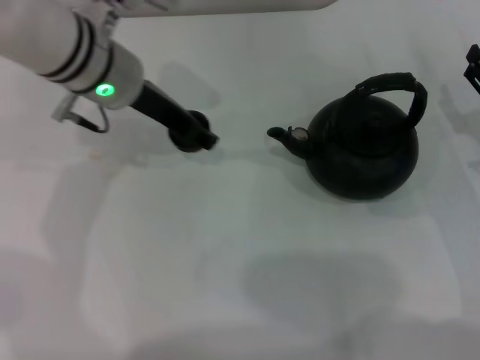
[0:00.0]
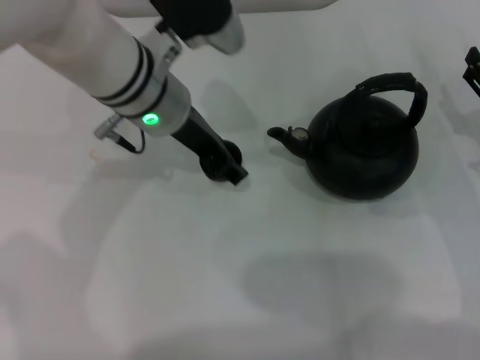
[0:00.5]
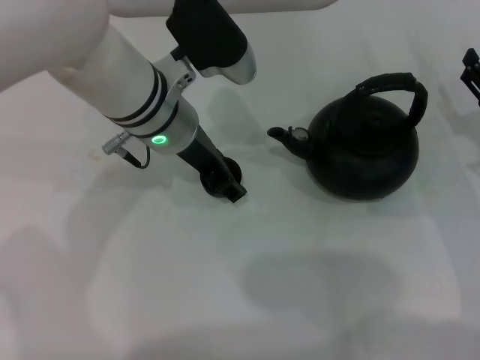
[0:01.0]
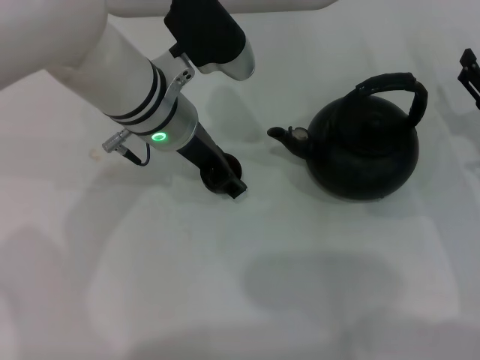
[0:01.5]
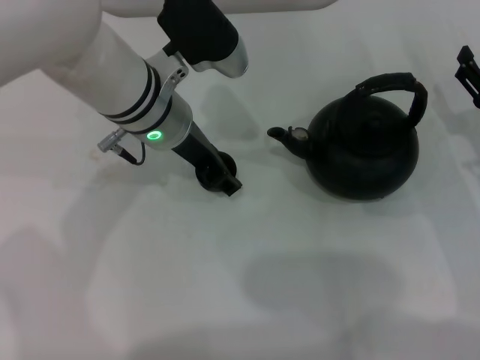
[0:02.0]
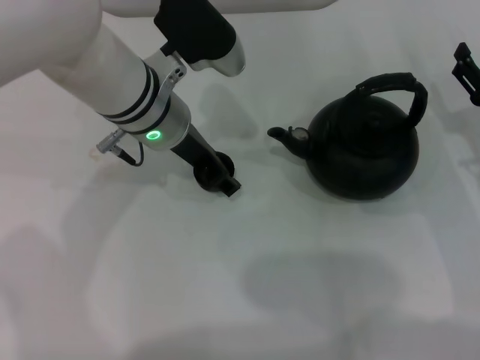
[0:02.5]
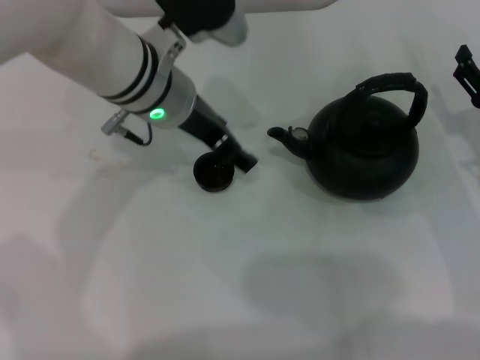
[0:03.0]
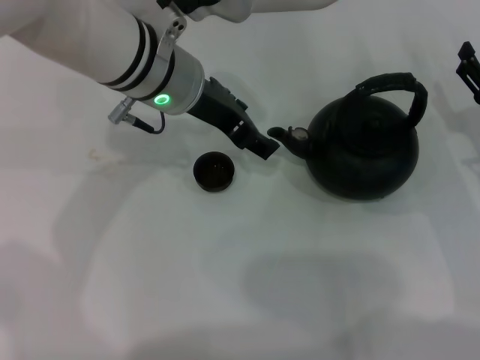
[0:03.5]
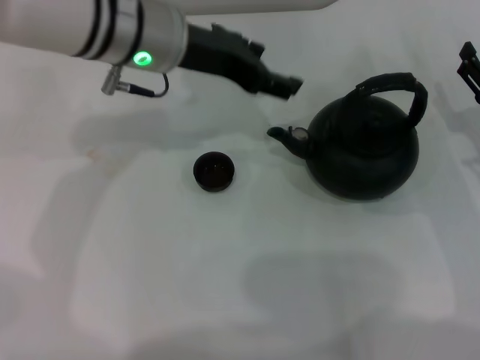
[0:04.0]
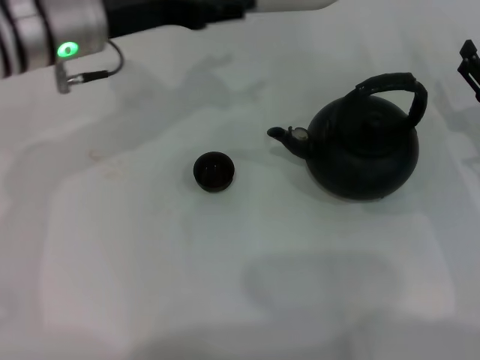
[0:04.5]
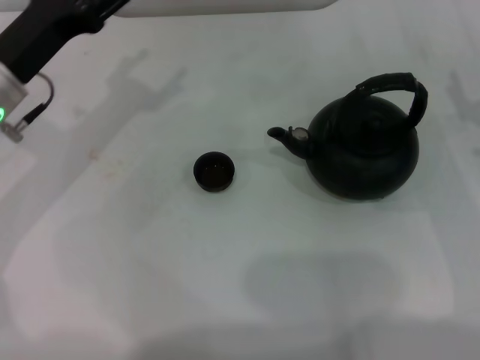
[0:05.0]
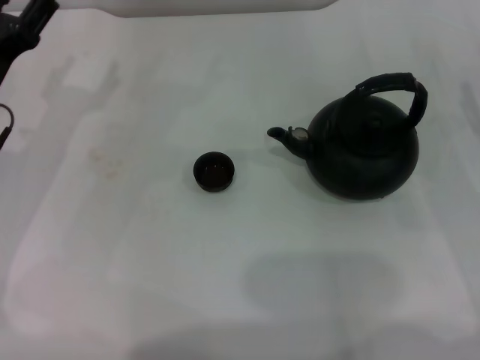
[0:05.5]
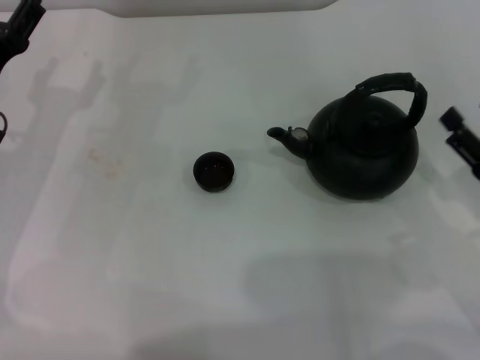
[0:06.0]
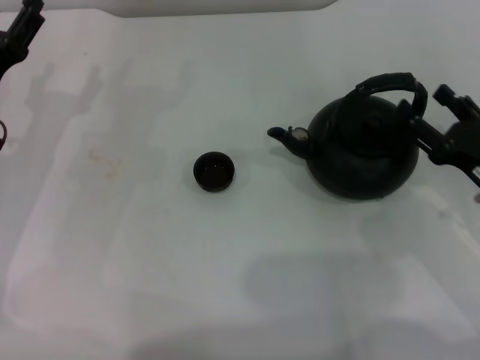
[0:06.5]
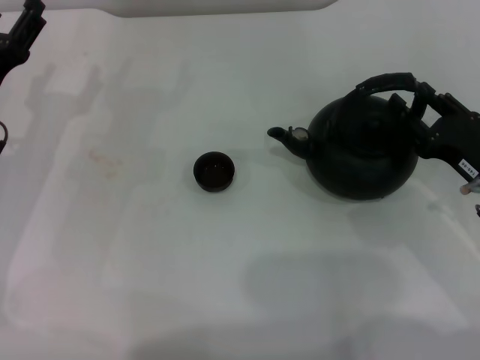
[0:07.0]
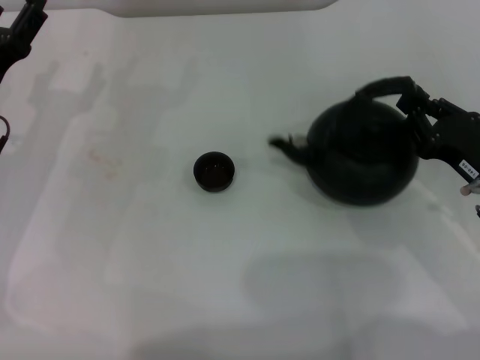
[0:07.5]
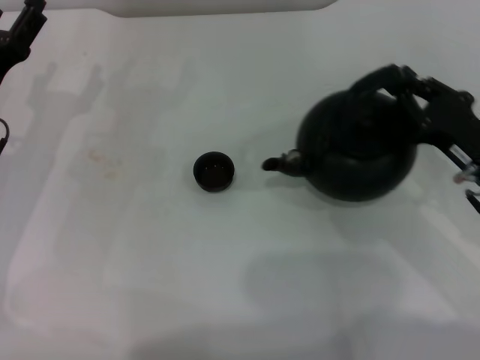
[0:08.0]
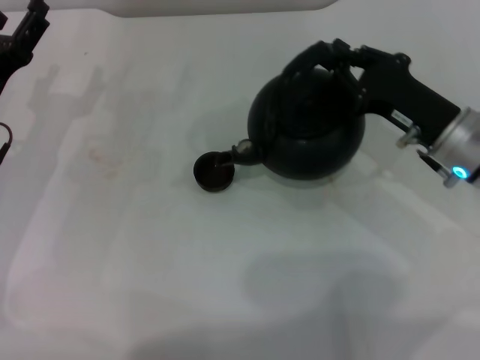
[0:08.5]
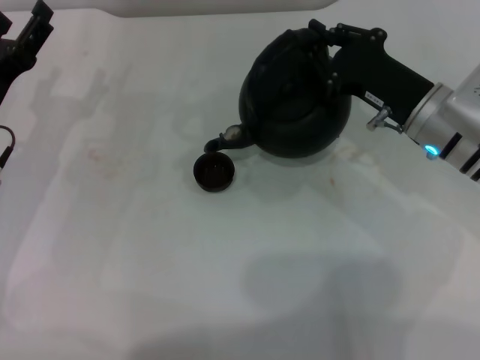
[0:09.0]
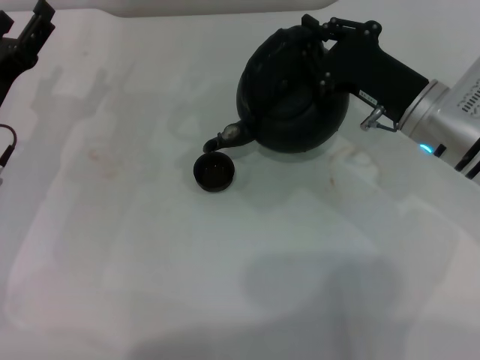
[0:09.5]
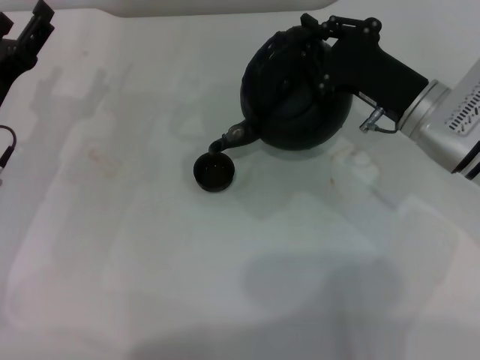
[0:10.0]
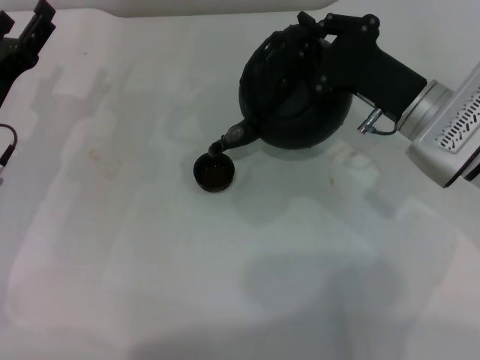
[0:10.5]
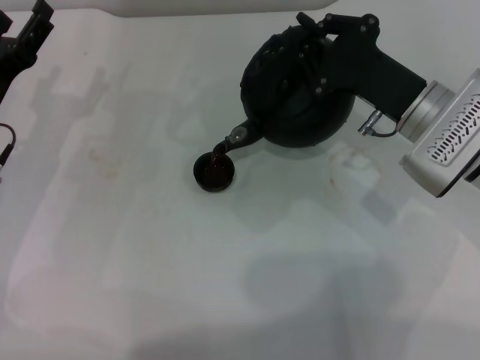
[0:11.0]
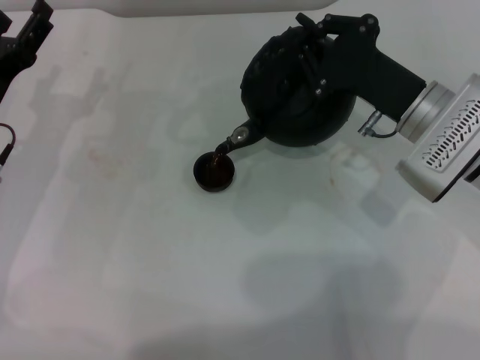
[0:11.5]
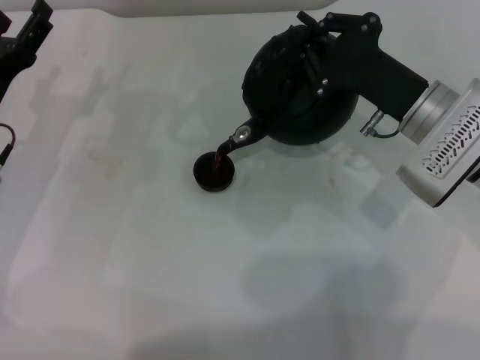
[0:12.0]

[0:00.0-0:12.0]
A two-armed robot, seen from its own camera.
Task of the whole recording: Grasp the handle of the teapot with one hand and pour tea into the teacup.
Step, 0:00.0 to 0:03.0: Place the teacup in the center of view with the left gripper.
Step, 0:03.5 to 0:08.0: Pick up the teapot with the right gripper.
0:00.0 to 0:02.0: The left gripper shifts by some 5 cm.
0:02.0 to 0:04.0: The left gripper travels upward by approximately 5 cm, and opens up.
0:04.0 to 0:06.0: The right gripper travels backward by some 10 cm, while the left gripper goes approximately 20 cm to the left and downward.
0:06.0 to 0:08.0: The right gripper is displaced forward by roughly 5 cm, and closes.
0:08.0 to 0:10.0: The right gripper is displaced to the left and forward by approximately 10 cm.
0:10.0 to 0:12.0: The grippers move only a little.

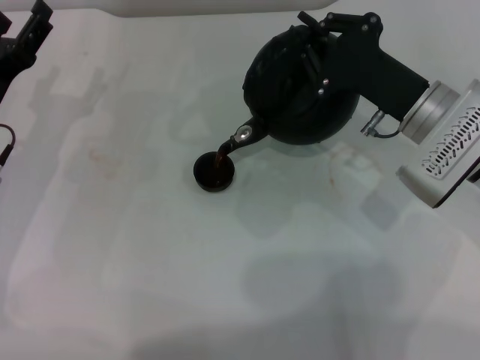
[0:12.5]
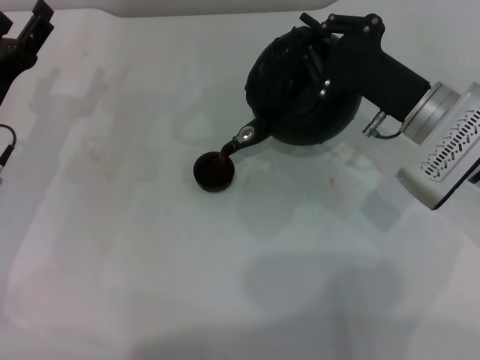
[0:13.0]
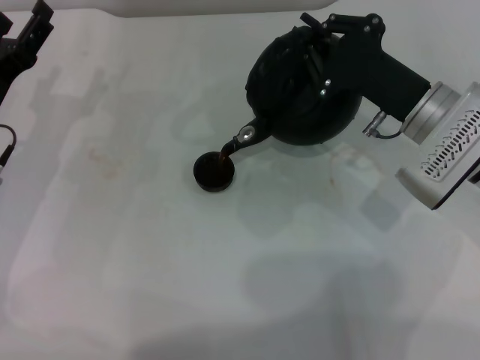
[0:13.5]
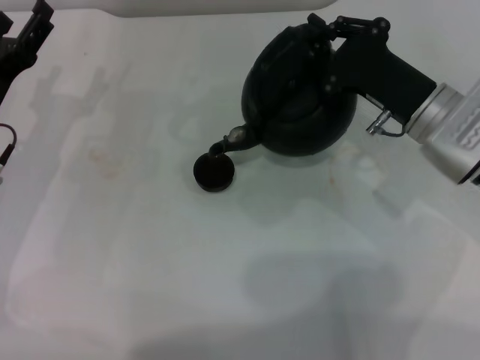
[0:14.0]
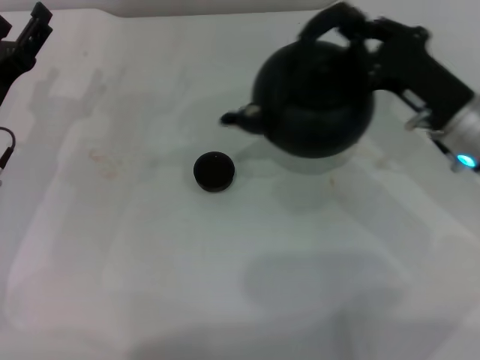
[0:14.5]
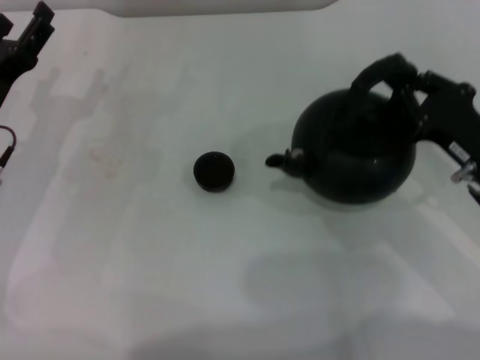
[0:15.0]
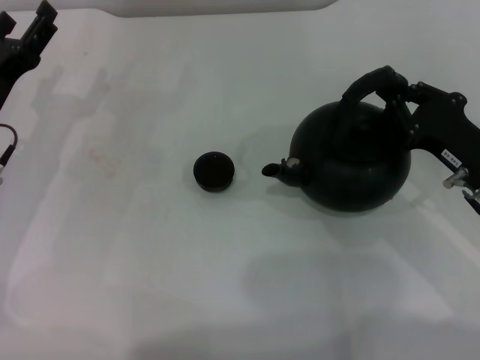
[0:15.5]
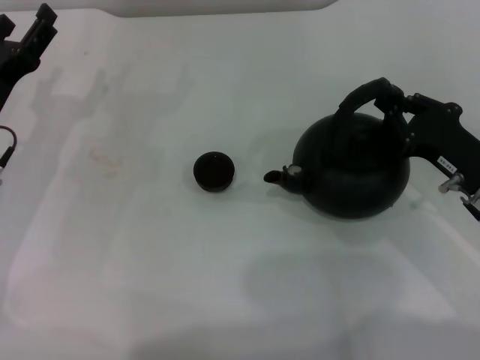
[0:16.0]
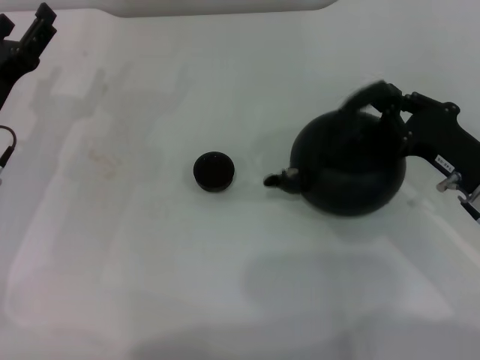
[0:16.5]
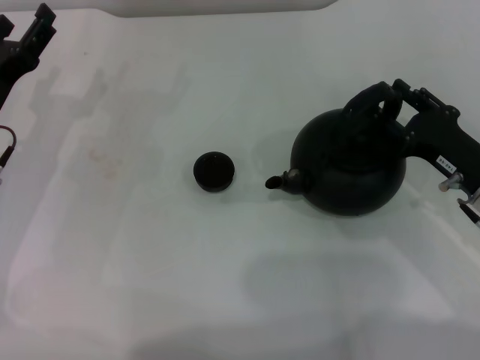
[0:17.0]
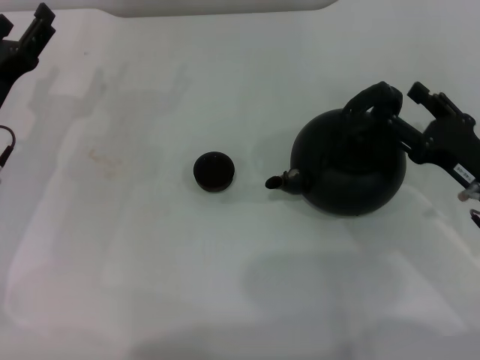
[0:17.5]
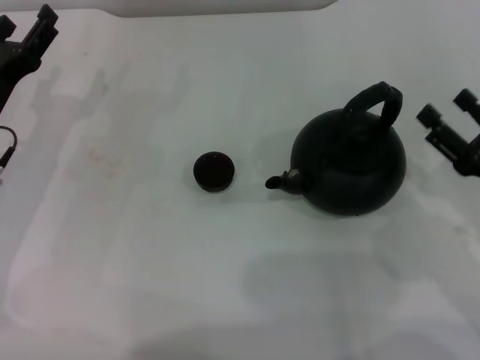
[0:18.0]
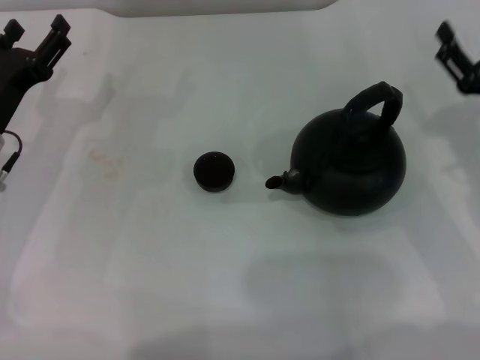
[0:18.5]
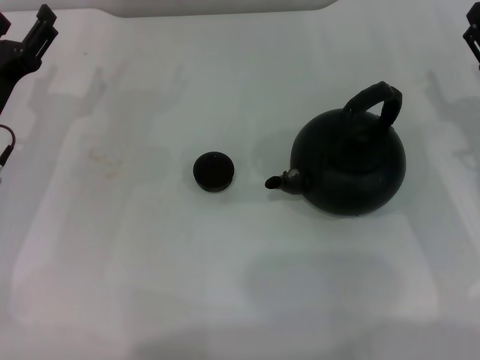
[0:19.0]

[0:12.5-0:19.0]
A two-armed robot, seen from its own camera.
Task of the whole recording: Grasp the handle of the teapot with one hand and pour tea into the teacup.
Step, 0:12.5 to 0:14.5: Pour tea into the teacup with the right gripper.
Step, 0:15.0 to 0:17.5: Put down the teapot with the right gripper.
0:14.5 to 0:17.0: The right gripper shifts by roughly 5 cm, and opens up.
0:17.0 to 0:19.0: The right gripper opens up.

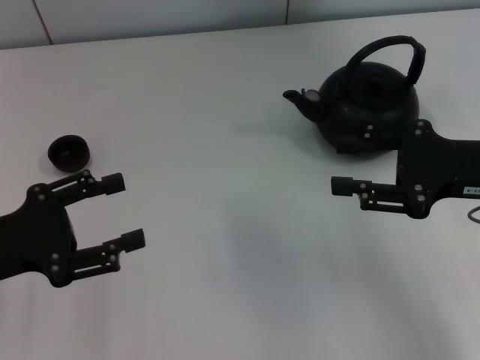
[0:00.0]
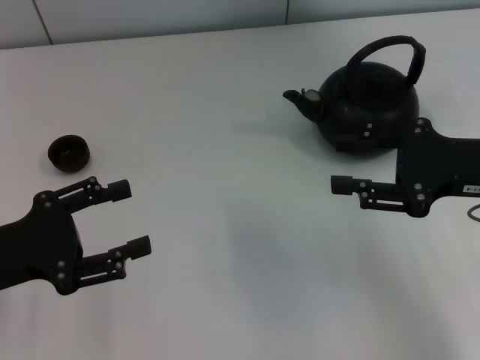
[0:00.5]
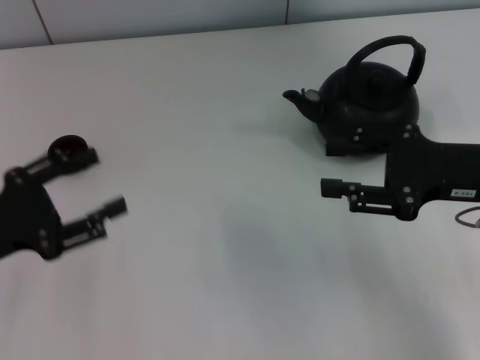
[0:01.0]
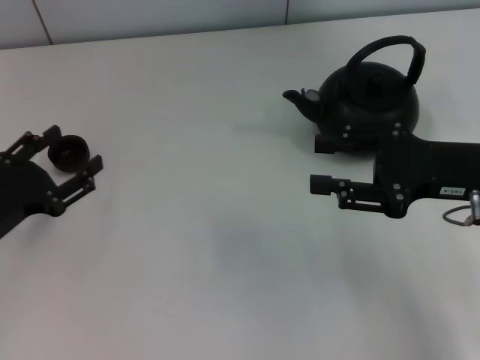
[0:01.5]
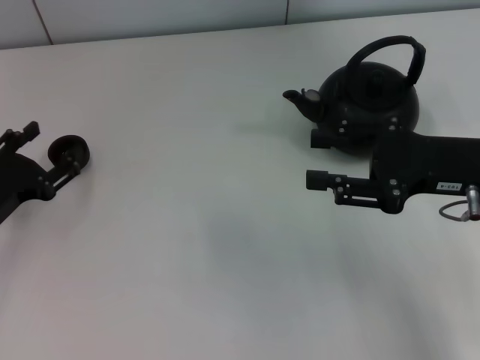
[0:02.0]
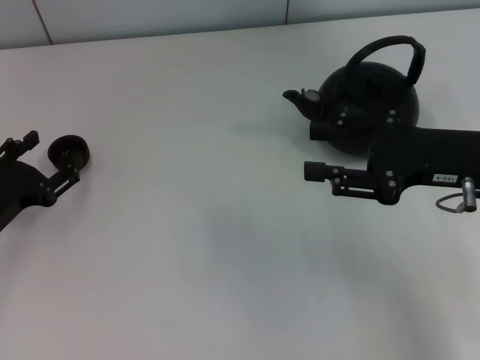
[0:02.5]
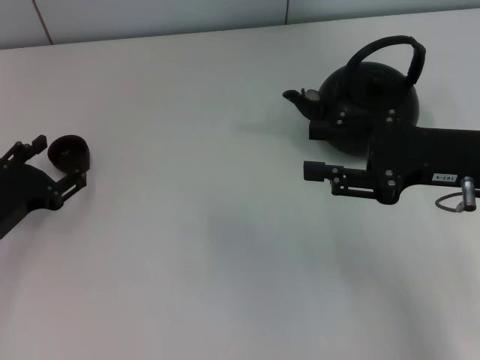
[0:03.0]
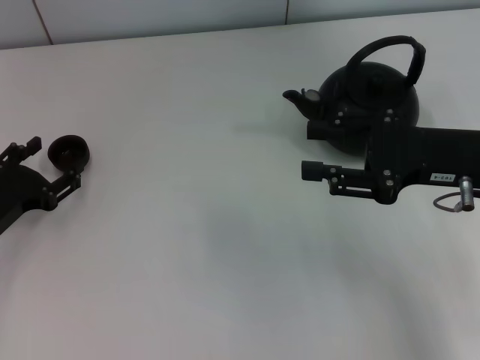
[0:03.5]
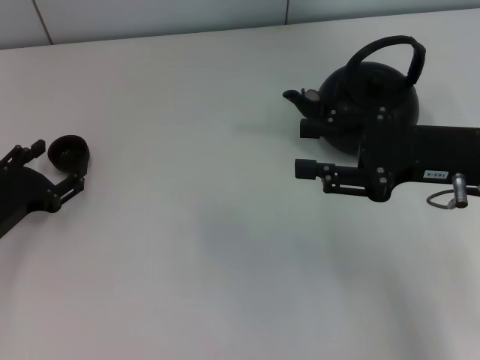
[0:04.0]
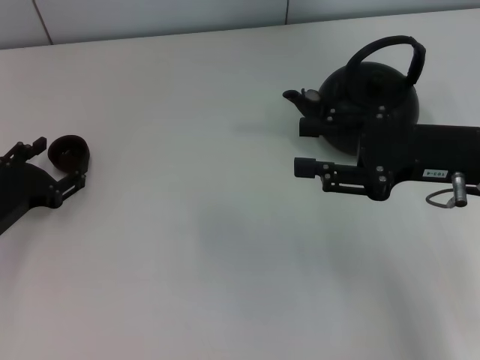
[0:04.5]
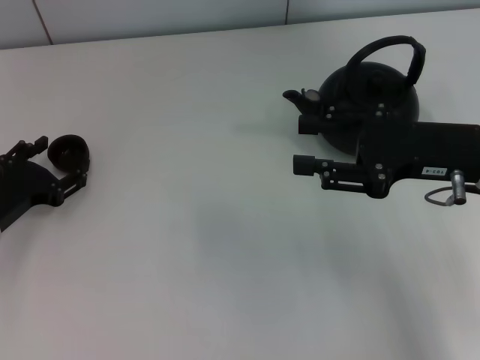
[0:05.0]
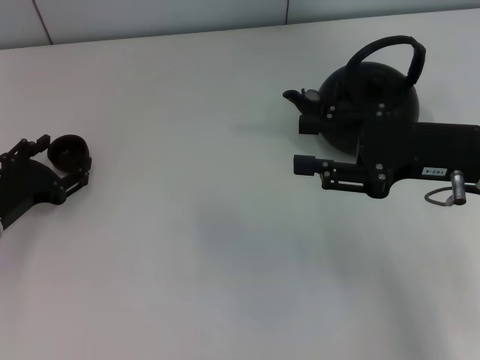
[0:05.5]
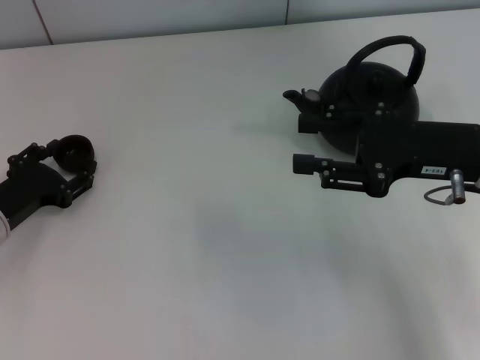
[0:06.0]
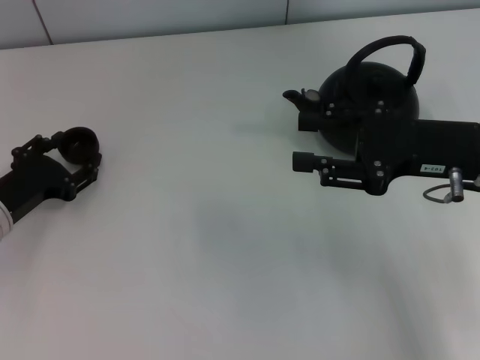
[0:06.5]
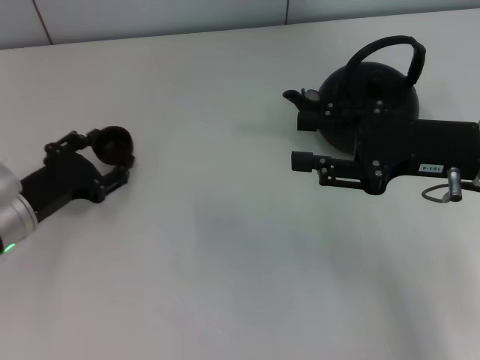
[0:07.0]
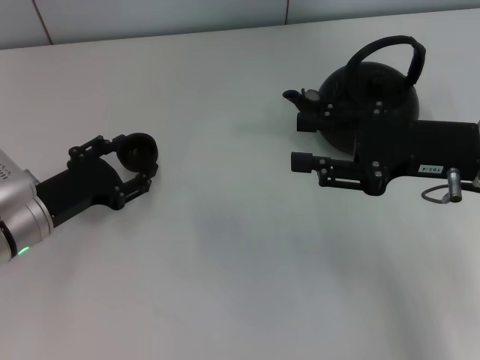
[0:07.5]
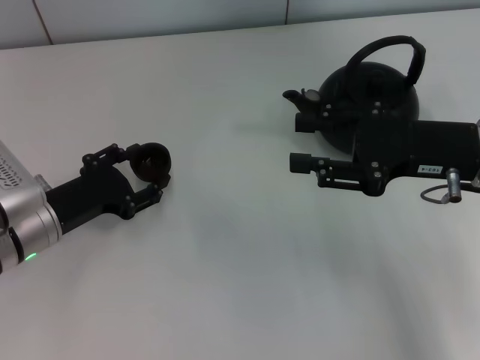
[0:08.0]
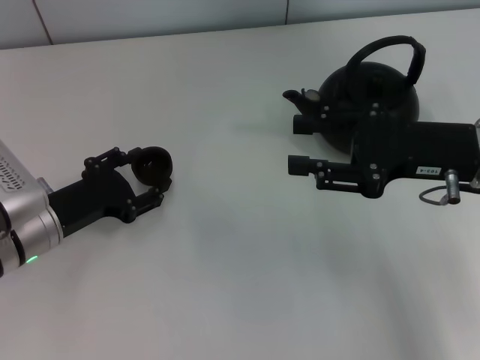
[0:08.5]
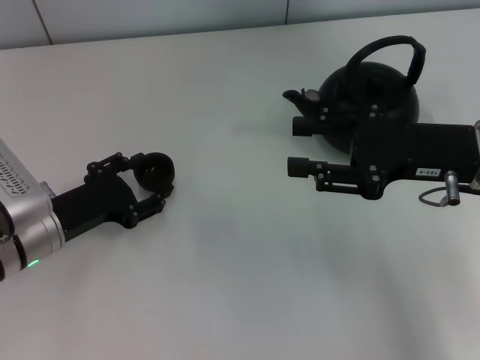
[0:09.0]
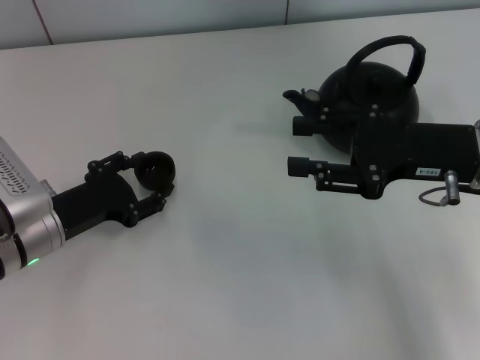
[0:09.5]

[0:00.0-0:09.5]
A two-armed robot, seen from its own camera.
Task of the whole recording: Grasp the handle of the teapot with one hand and pour tea into the teacup.
Step, 0:00.0 to 0:06.5: Pick up the teacup with the left gripper.
0:00.0 to 0:02.0: The left gripper heads downward, covering roughly 5 cm.
0:02.0 to 0:07.5: There are only small adjustments of the grippers.
0:07.5 to 0:09.5: There are only small adjustments of the grippers.
